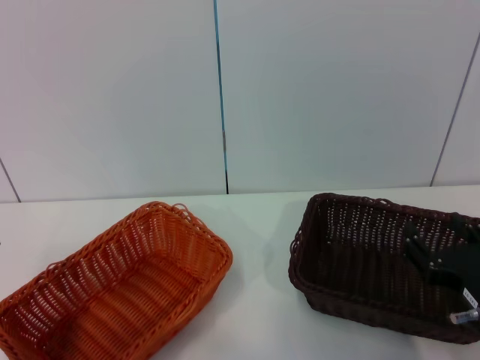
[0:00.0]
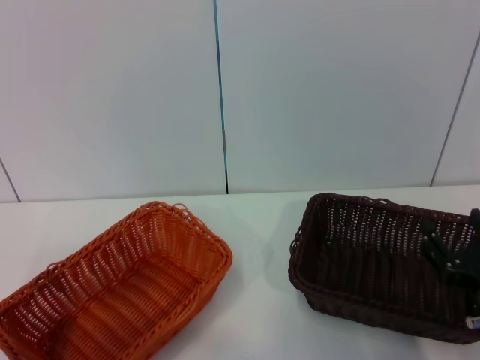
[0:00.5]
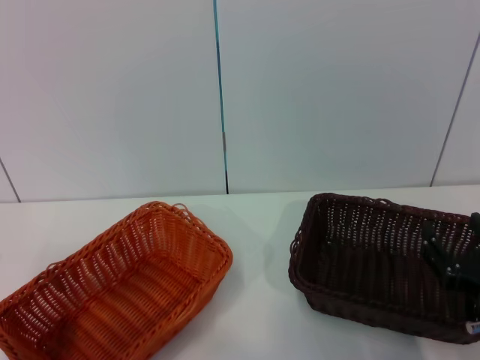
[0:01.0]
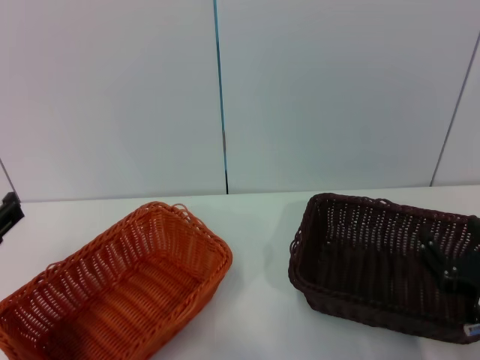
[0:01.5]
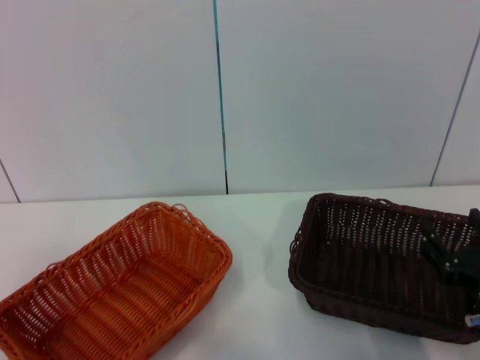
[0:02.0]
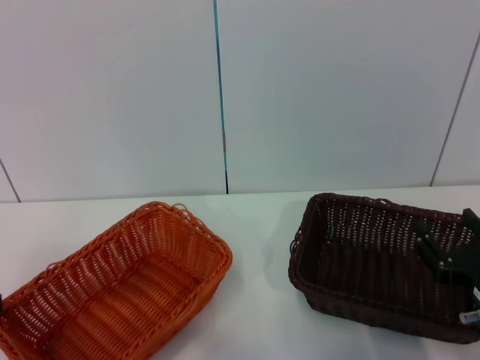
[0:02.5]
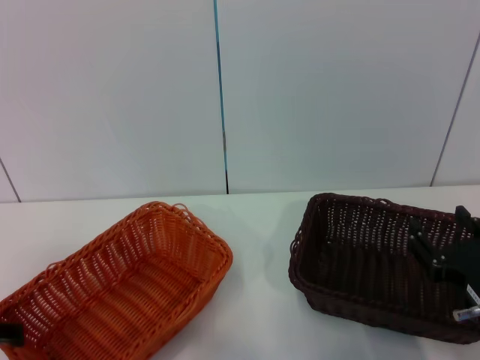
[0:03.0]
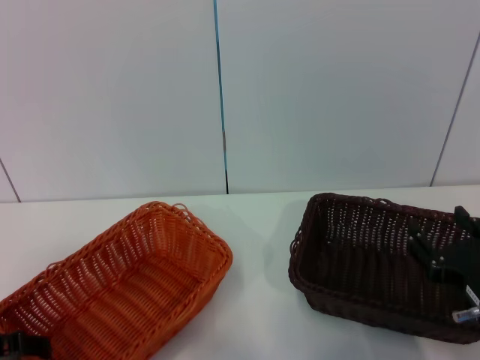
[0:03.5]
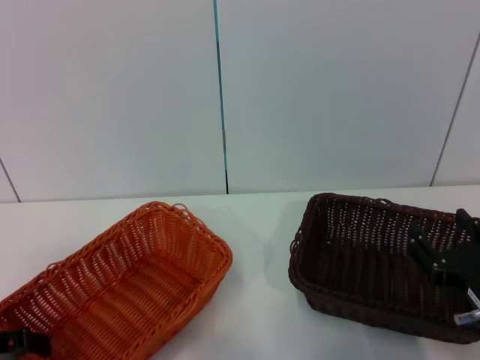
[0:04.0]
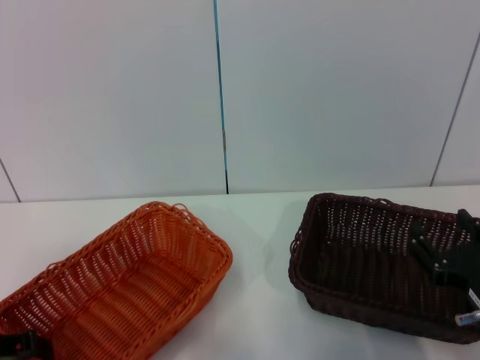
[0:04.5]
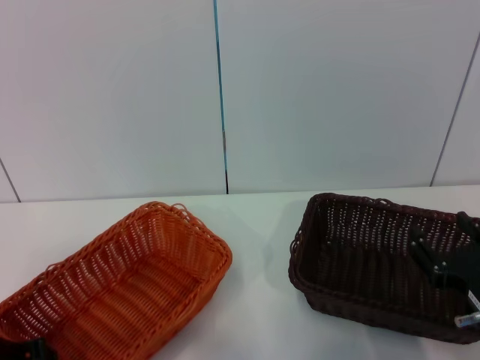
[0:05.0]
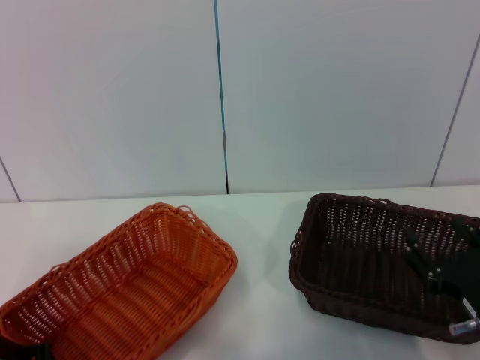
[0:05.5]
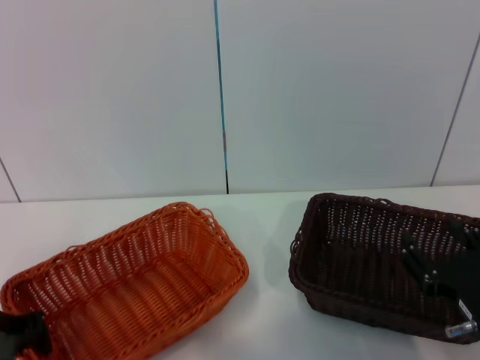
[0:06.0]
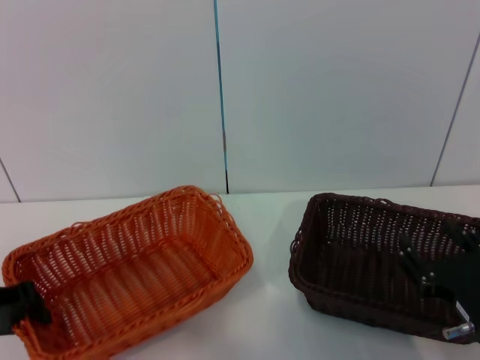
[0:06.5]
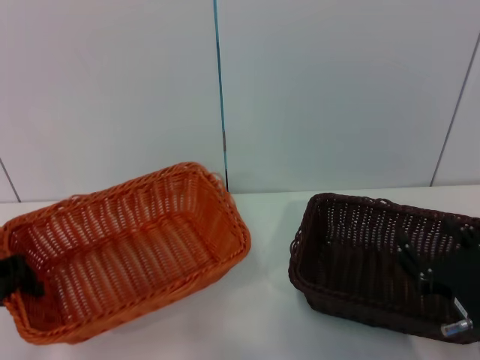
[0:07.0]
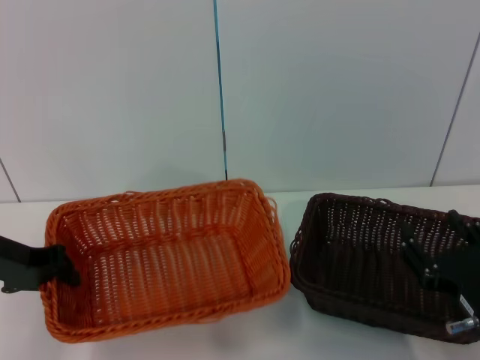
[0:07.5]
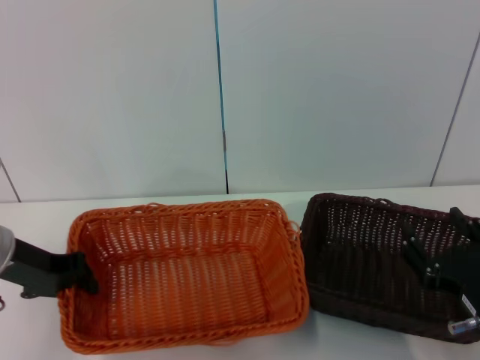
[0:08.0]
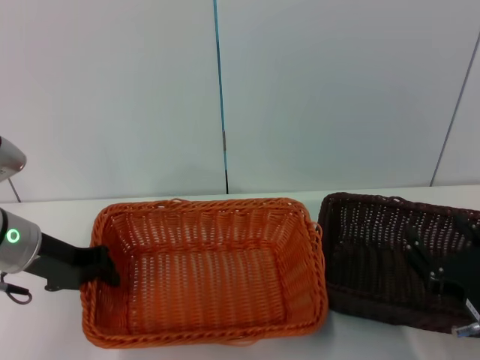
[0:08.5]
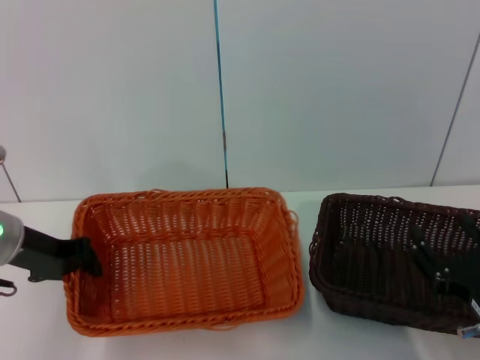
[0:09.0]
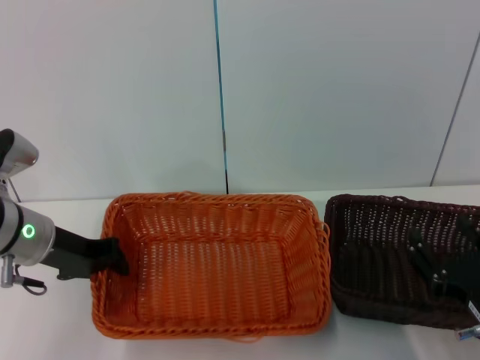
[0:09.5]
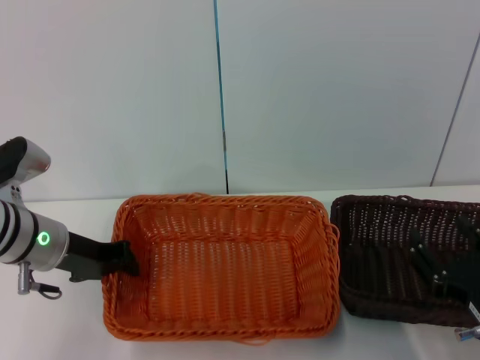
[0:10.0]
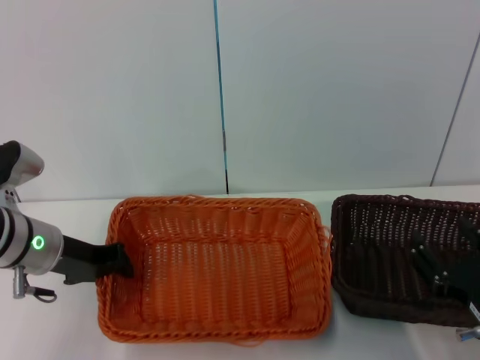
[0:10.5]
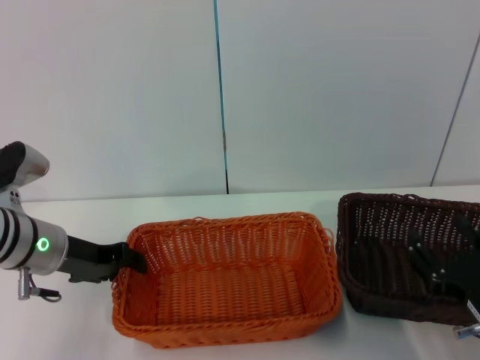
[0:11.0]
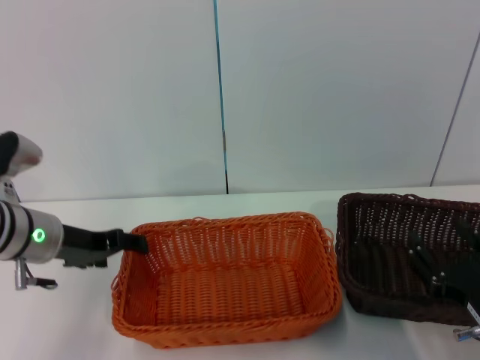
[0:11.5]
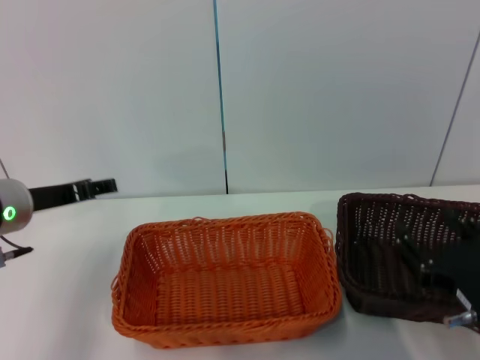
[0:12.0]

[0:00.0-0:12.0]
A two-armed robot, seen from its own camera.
Step, 0:00.0 to 0:06.0: Pick up the light basket with the left gripper.
Step, 0:06.5 to 0:10.5: Place the light basket in the center of view with the left gripper.
0:04.0 to 0:06.0: The left gripper closes up.
0:06.0 to 0:08.0: The left gripper is displaced forward by roughly 5 cm.
0:08.0 to 0:10.0: The left gripper moves about 5 cm.
0:10.0 to 0:12.0: The left gripper opens.

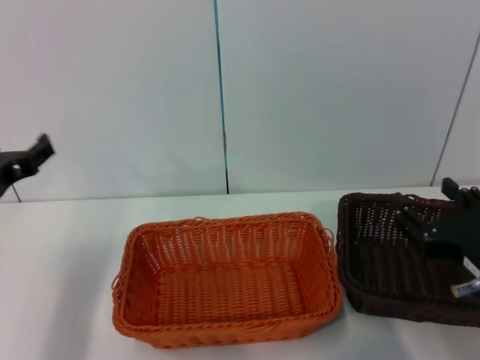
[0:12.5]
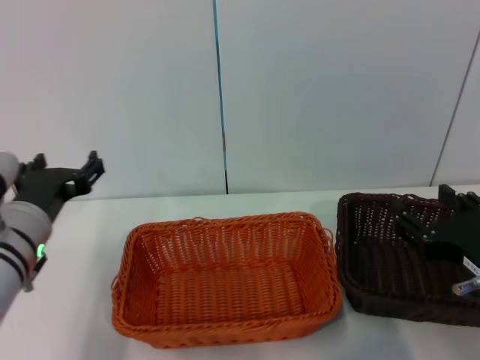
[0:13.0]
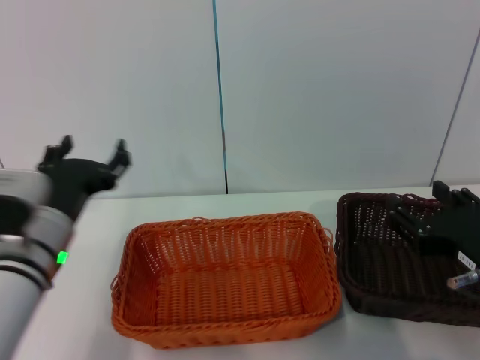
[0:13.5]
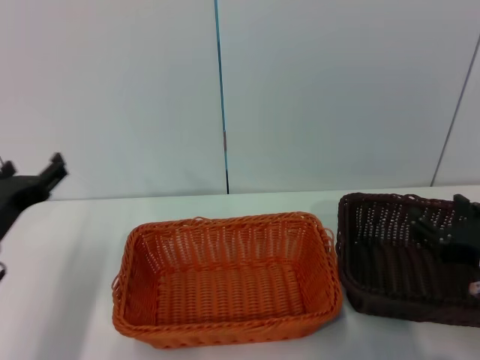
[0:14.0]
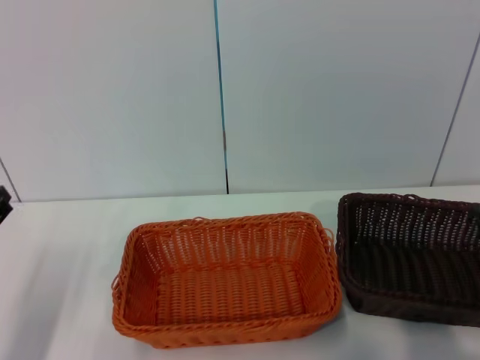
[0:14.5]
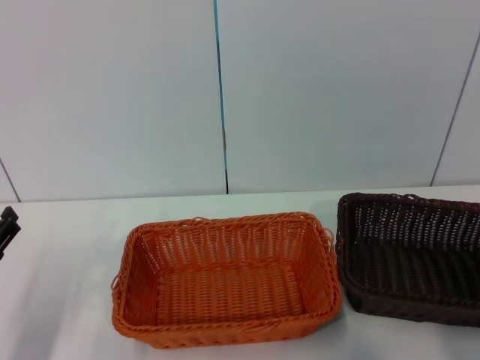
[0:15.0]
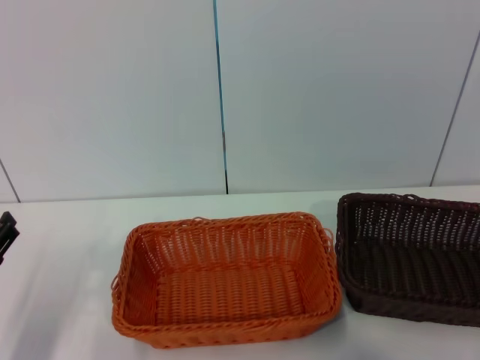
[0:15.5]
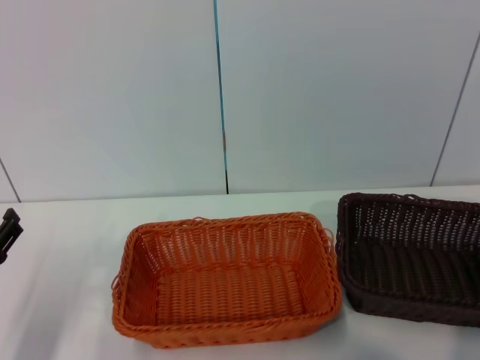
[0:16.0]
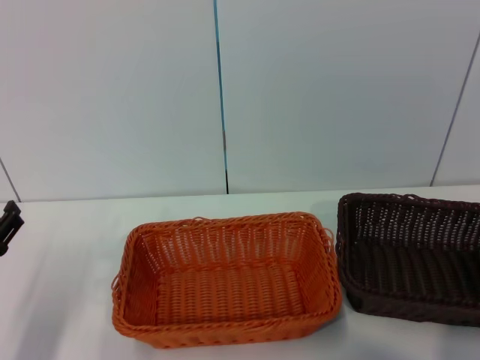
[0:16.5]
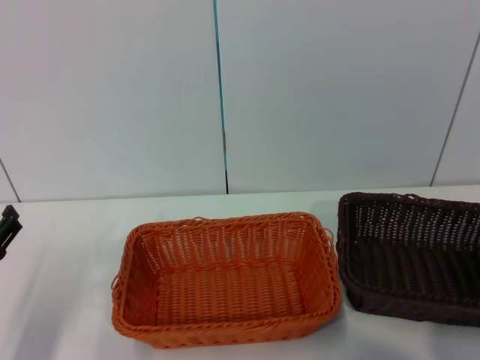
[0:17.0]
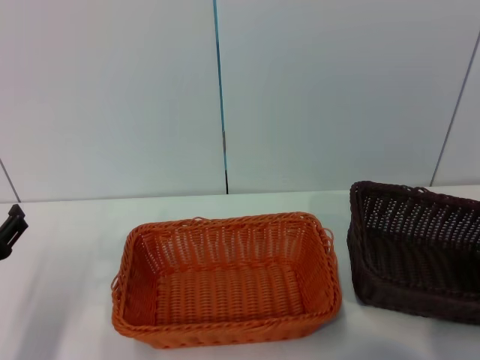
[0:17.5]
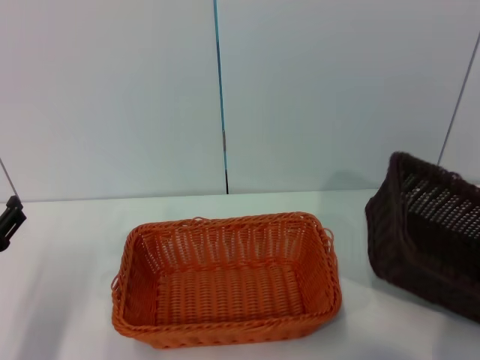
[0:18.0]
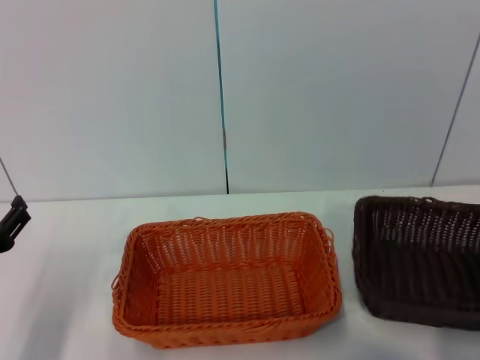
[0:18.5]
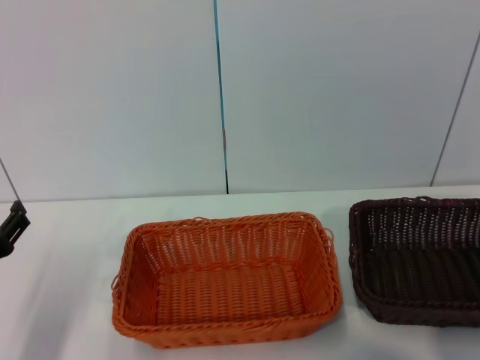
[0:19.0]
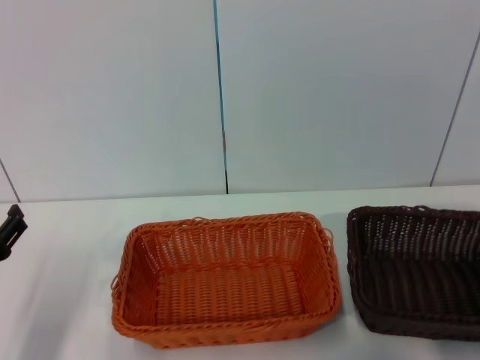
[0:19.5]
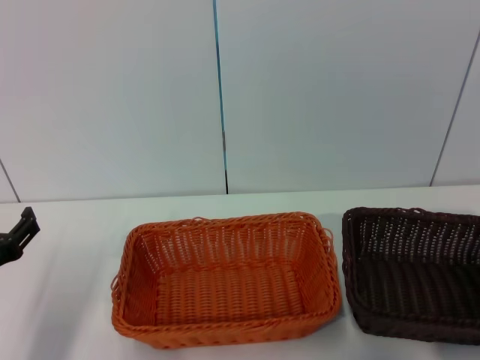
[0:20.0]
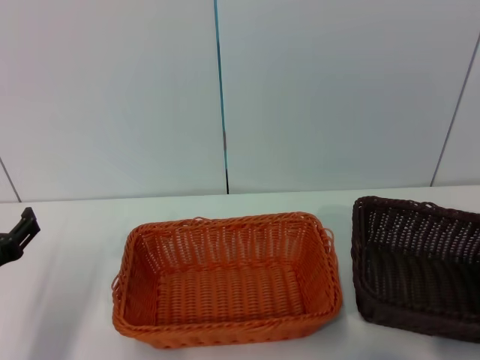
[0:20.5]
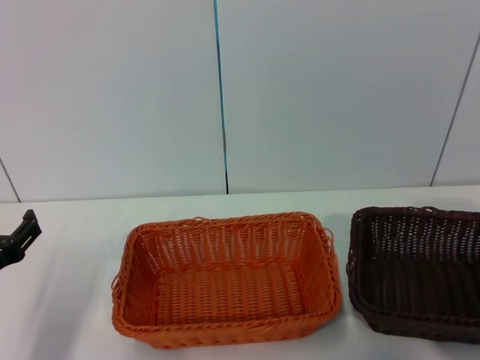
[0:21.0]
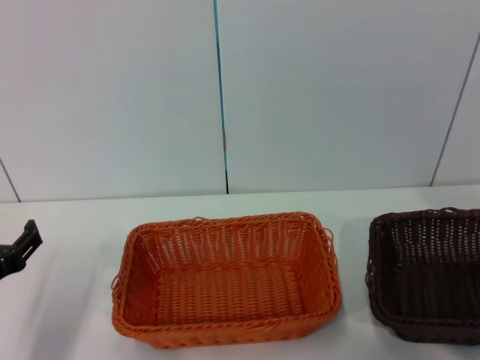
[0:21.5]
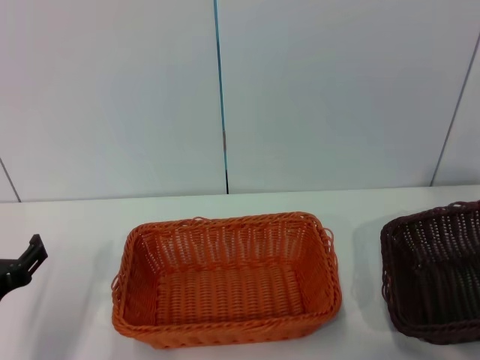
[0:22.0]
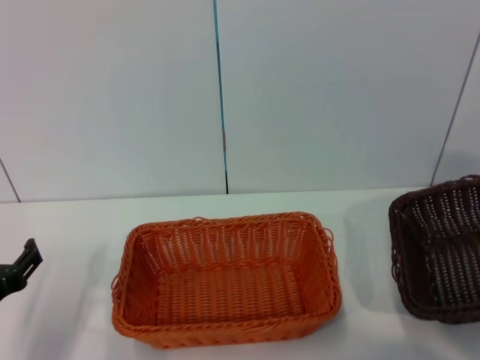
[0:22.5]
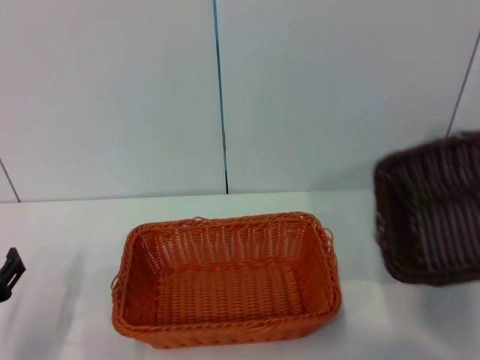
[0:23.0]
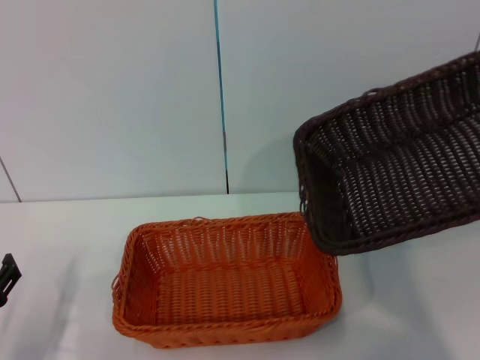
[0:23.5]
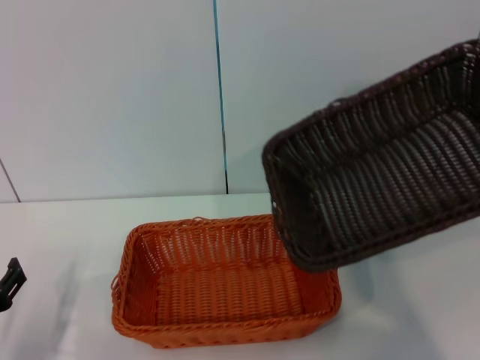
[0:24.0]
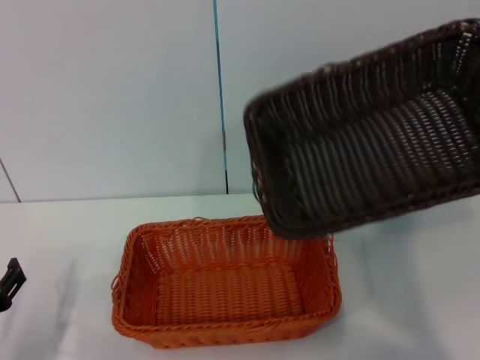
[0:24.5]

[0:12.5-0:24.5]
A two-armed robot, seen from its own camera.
Step, 0:12.5 to 0:22.0: Pick up the dark basket with the right gripper.
0:12.5 to 0:14.5: The left gripper travels backward and downward by some 10 cm. The right gripper is displaced to the right by some 5 cm.
0:14.5 to 0:16.5: The right gripper moves forward, to the right and downward, some 15 cm.
0:16.5 to 0:20.5: The grippers move only a little.
0:20.5 to 0:22.5: The right gripper is displaced upward by approximately 15 cm.
0:22.5 to 0:24.5: The right gripper heads to the left and upward, covering about 15 cm.

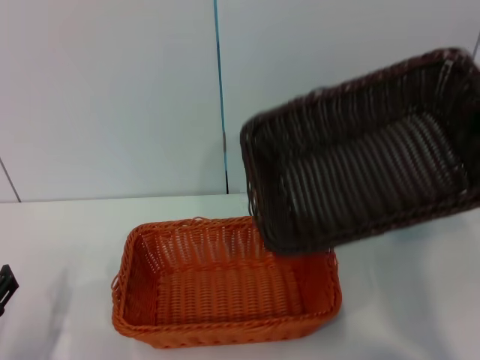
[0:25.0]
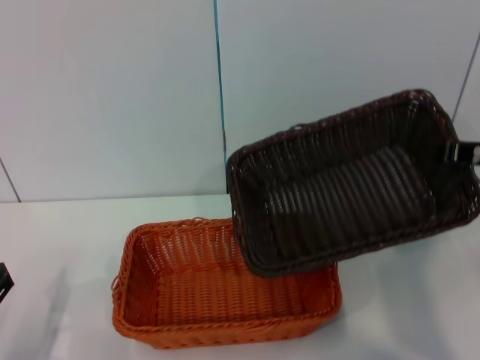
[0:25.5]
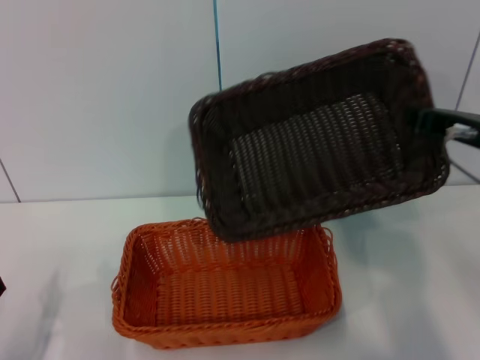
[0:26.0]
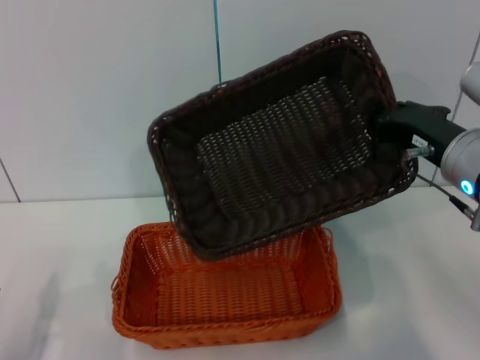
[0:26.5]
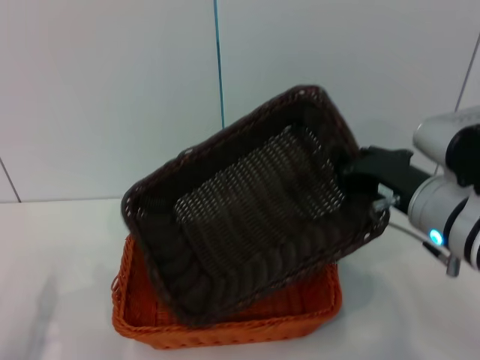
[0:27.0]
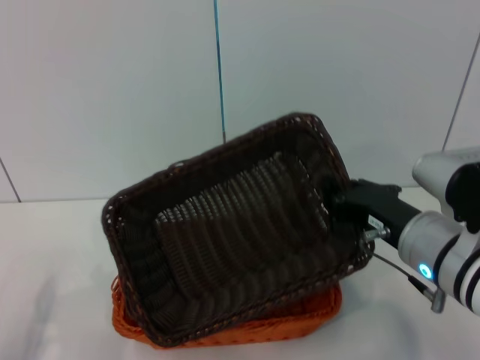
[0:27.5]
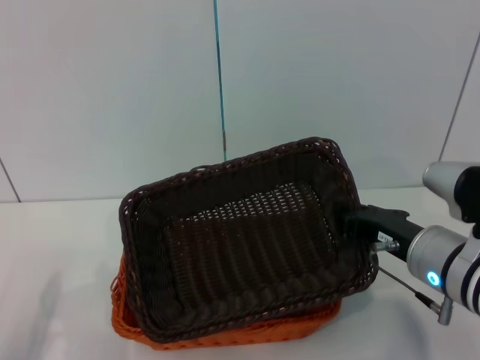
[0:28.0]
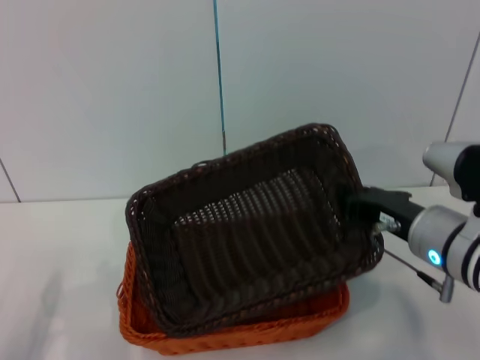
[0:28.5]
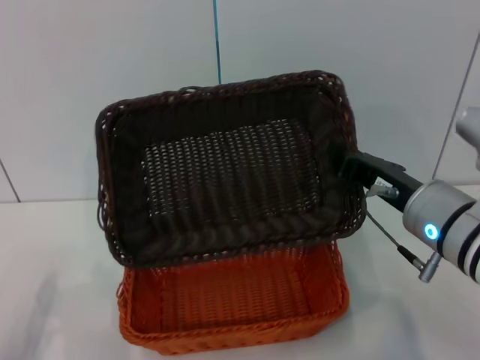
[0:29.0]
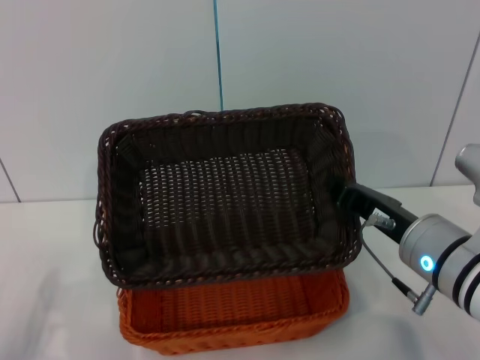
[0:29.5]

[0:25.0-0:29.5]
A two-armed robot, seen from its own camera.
0:25.0 to 0:27.0: The right gripper heads to the left and downward, covering some 15 cm.
